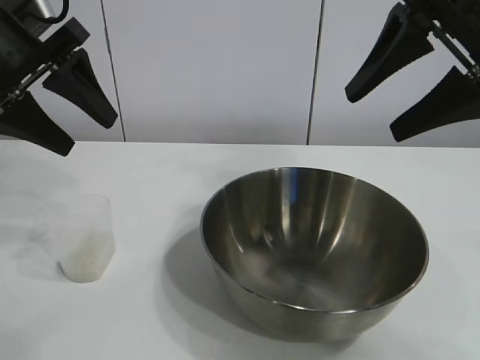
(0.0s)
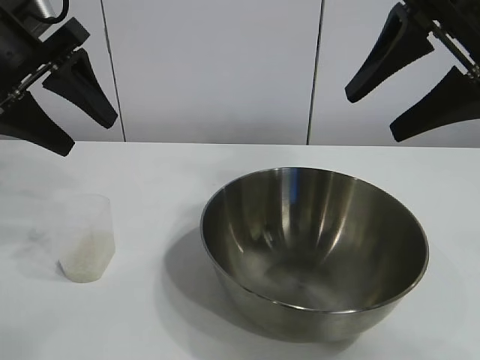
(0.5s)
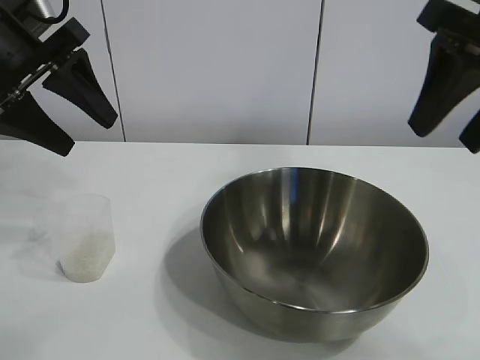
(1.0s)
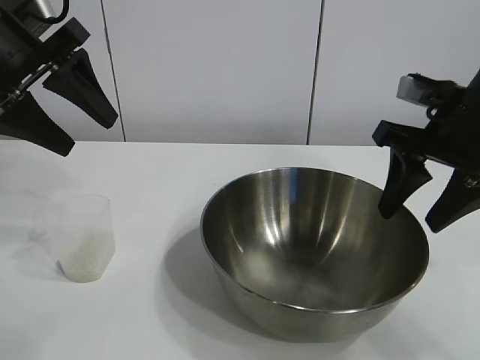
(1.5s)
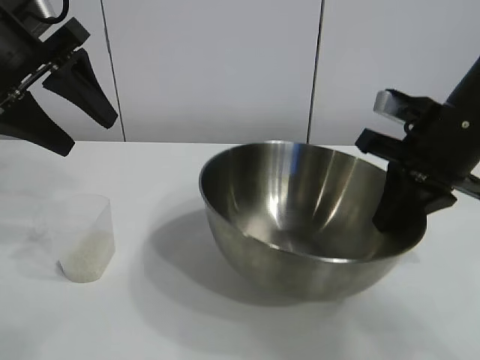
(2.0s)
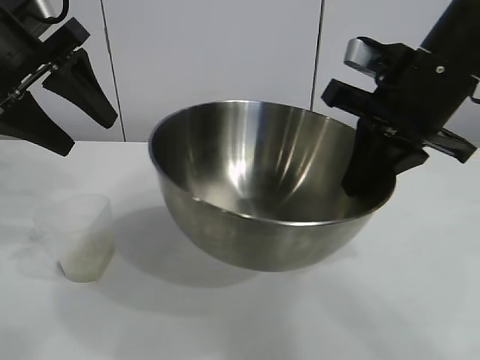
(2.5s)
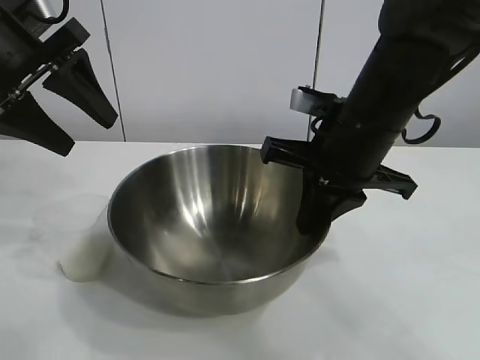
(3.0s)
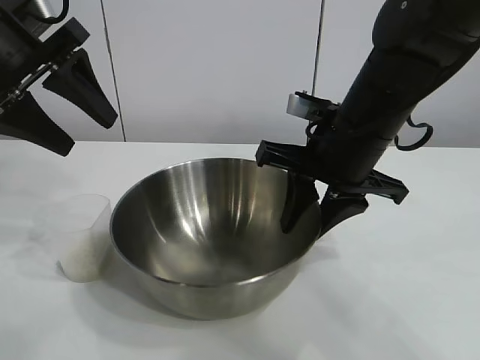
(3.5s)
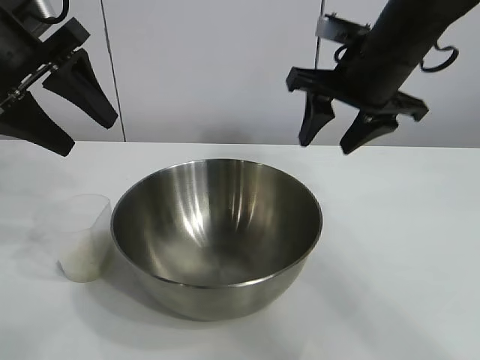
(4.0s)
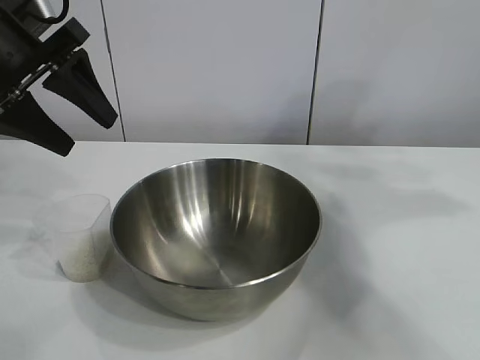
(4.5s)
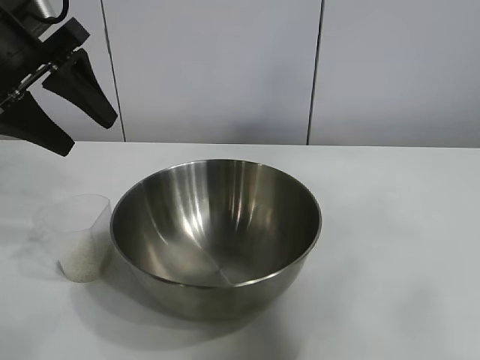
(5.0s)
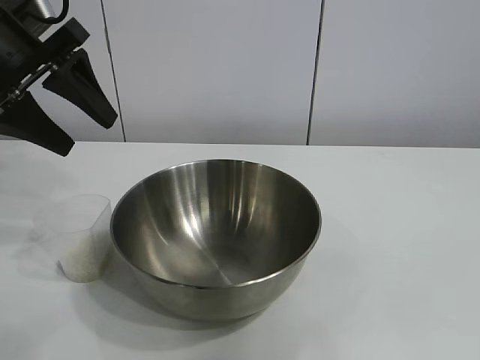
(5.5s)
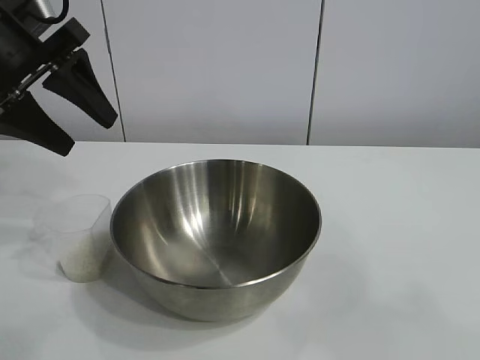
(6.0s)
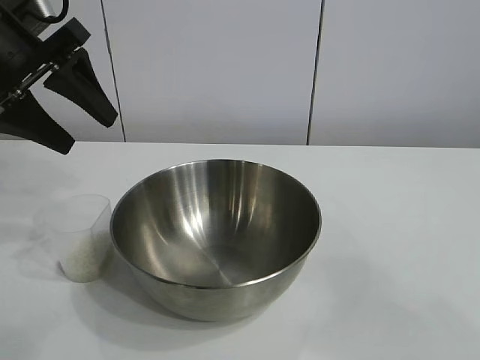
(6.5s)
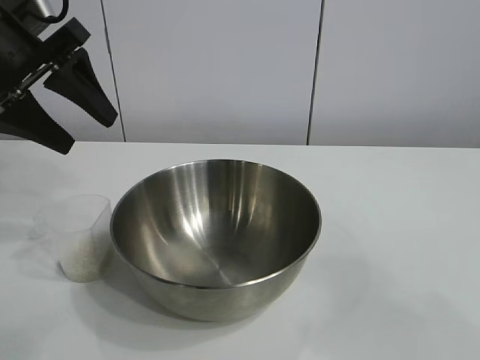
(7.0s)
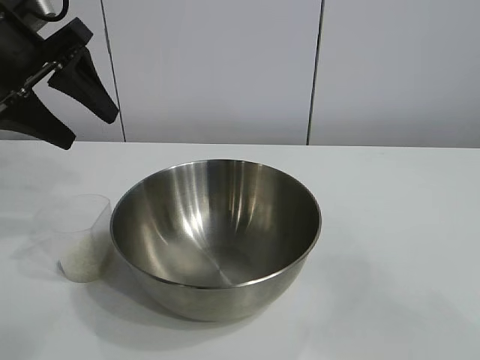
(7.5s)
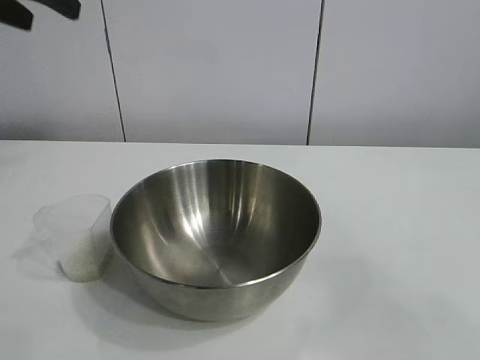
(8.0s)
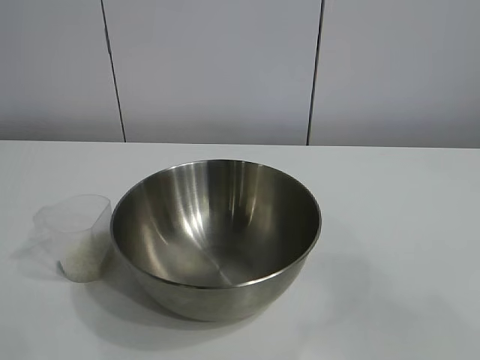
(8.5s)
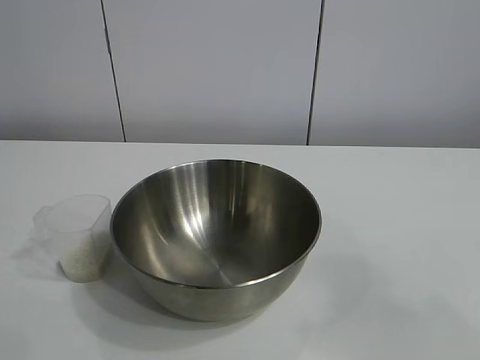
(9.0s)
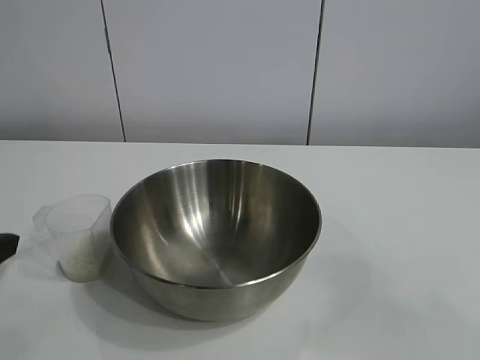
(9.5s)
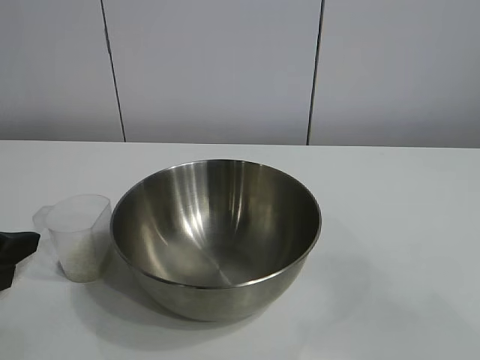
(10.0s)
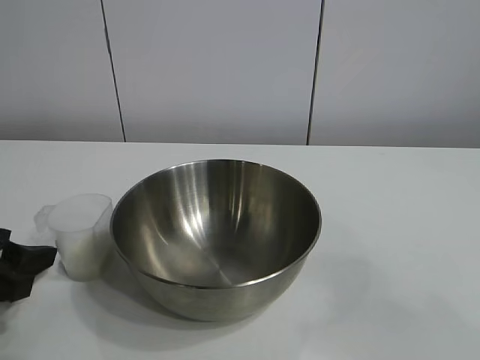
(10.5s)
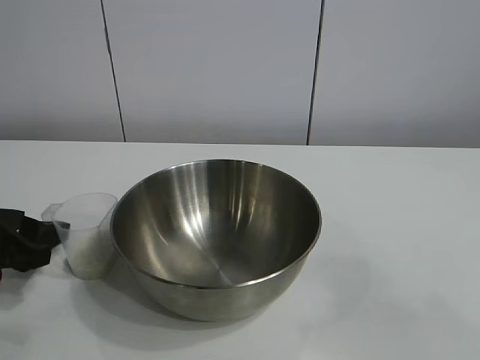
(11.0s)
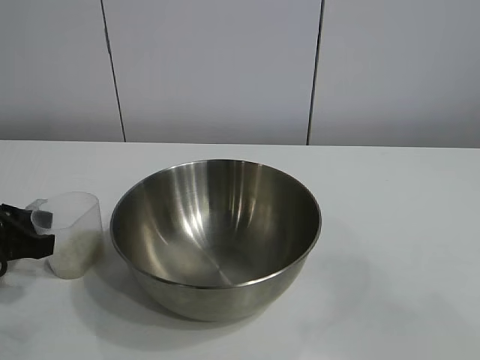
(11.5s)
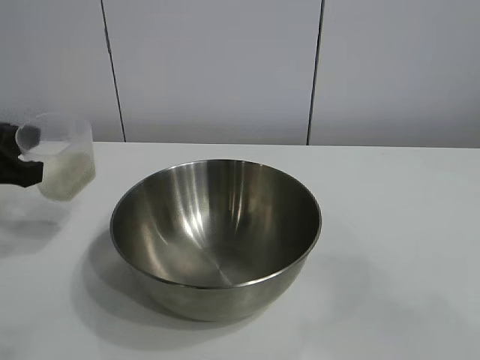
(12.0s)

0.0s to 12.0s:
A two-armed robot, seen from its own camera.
Task of the whole recording: the right gripper grasp the rice container and place it in the center of the table, the left gripper grasp the rice scoop and pour the rice into the rice container.
Step, 1.0s to 3.5s: Move the bowl in the center of view with right gripper.
Step, 4.0s to 11.5s: Grasp the cup with rice in it with left gripper.

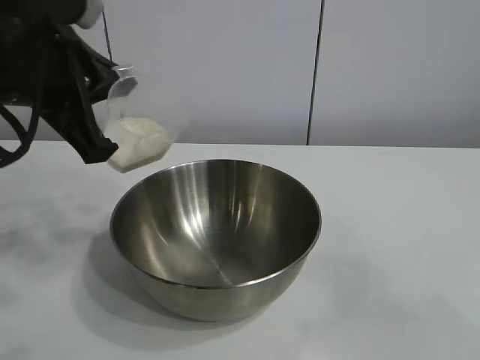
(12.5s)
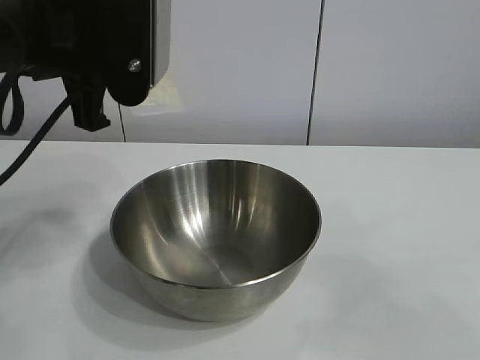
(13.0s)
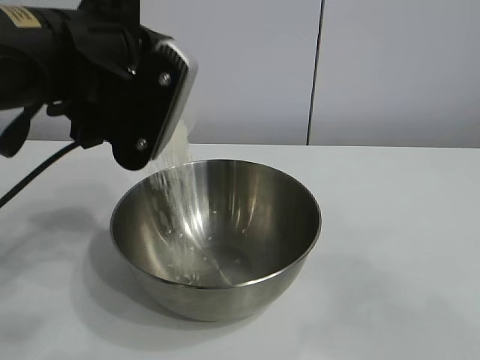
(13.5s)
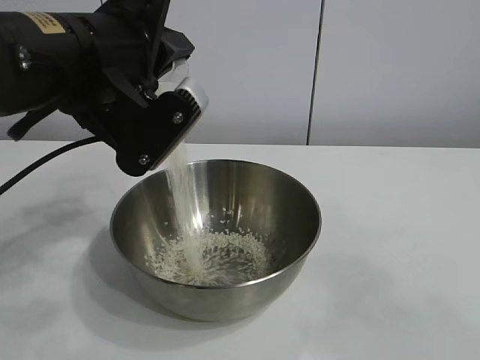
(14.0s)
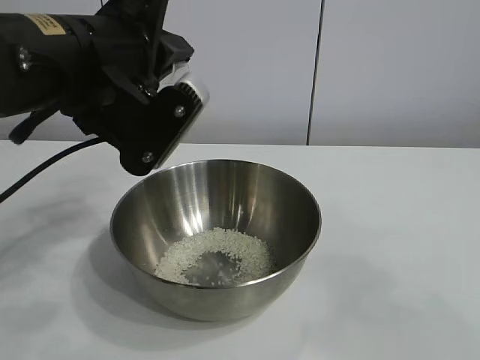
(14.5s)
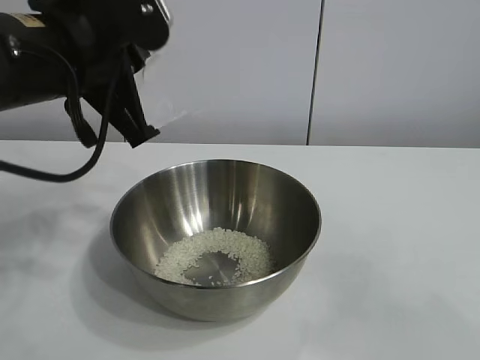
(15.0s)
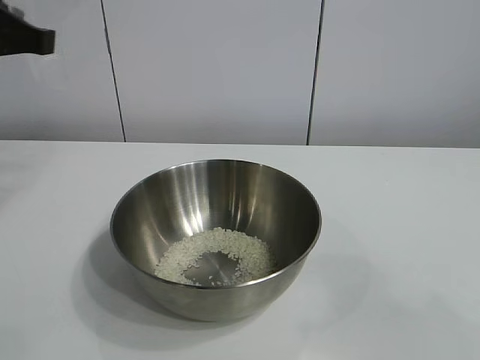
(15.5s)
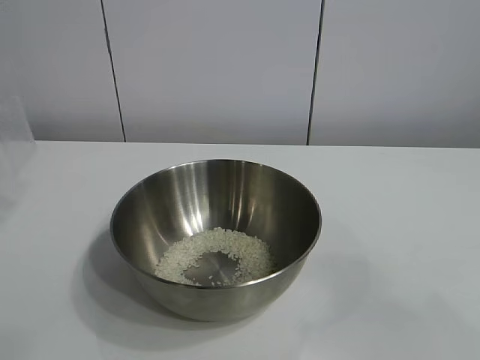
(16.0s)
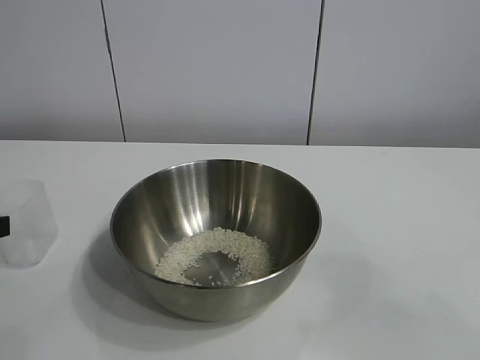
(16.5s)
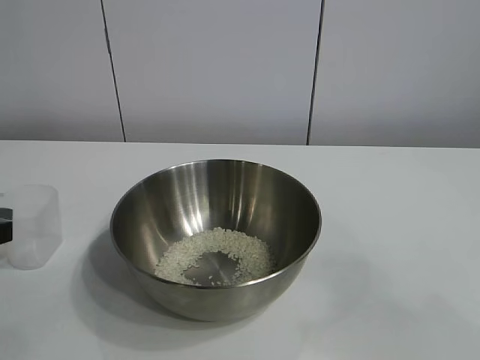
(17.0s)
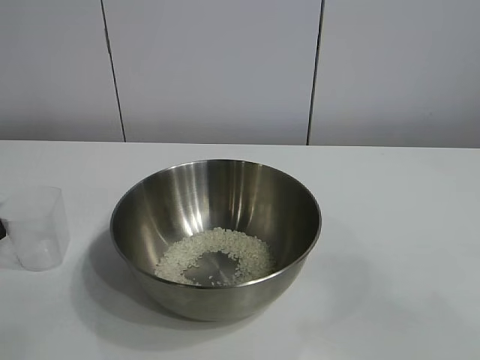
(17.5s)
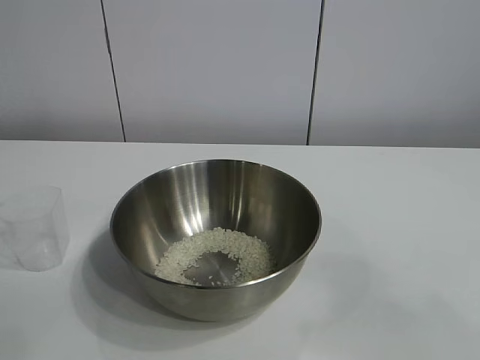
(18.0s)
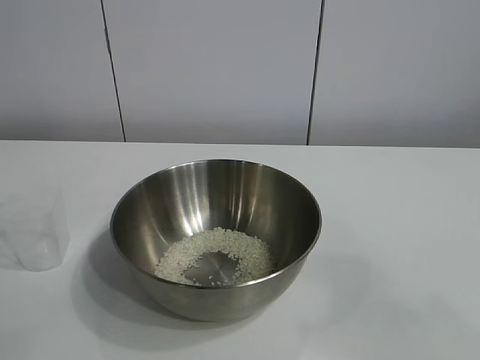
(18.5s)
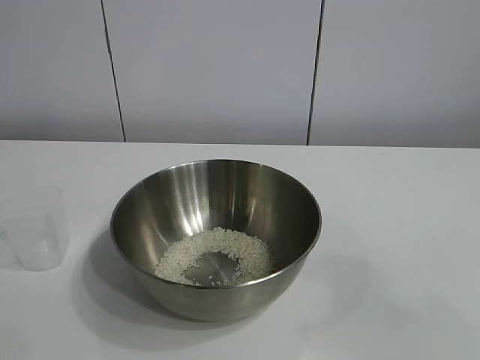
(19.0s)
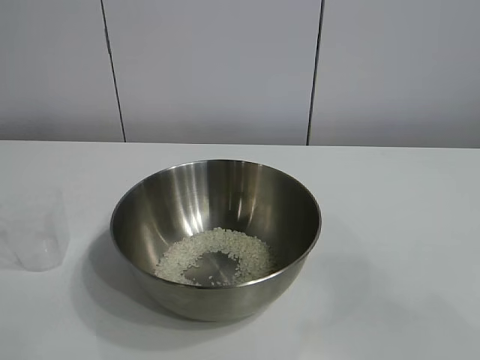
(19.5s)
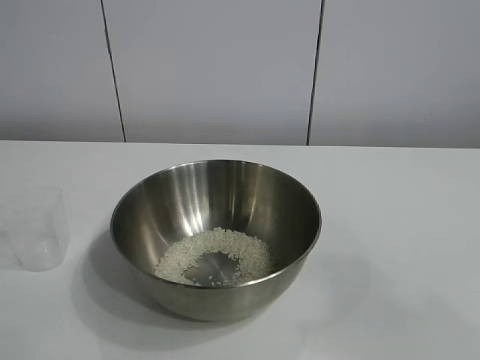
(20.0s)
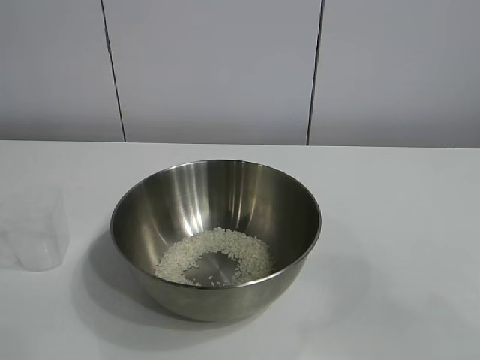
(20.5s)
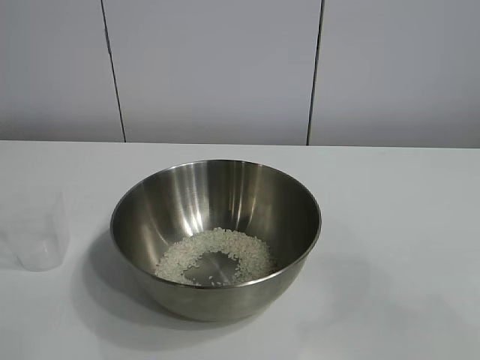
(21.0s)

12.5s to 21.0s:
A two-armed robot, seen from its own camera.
Task of the whole recording: the right gripper grasp the rice container and place it in the center of the table, the left gripper grasp the rice scoop and pour the rice into the rice container.
Step, 12.5s to 14.0s: Pour the rice from the cup into the bowl with the left gripper.
Step, 15.0s to 17.0s: Place the cup on the table with the left gripper.
